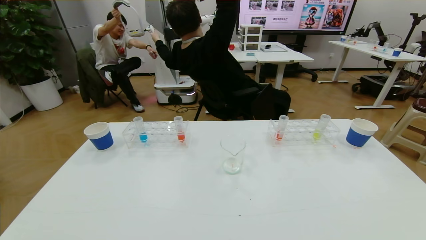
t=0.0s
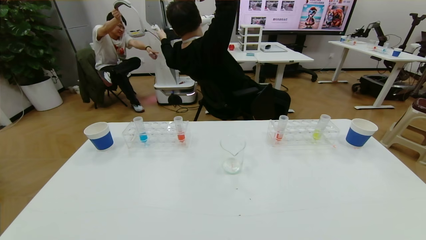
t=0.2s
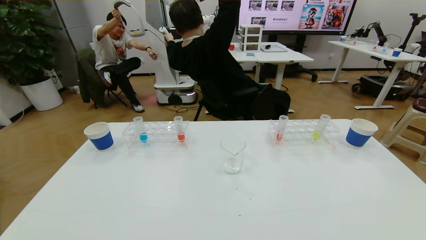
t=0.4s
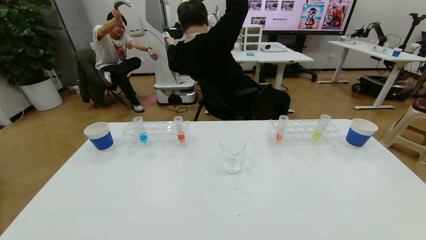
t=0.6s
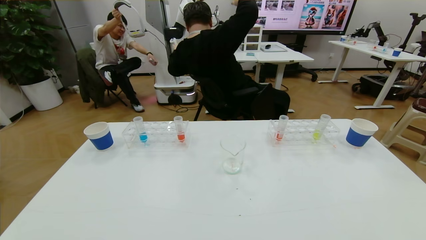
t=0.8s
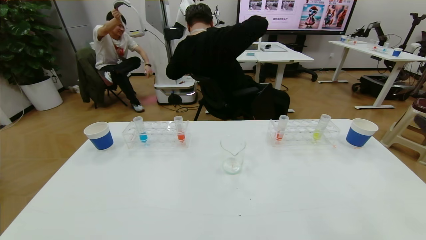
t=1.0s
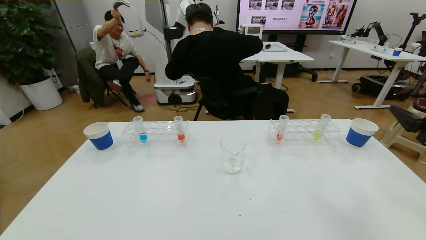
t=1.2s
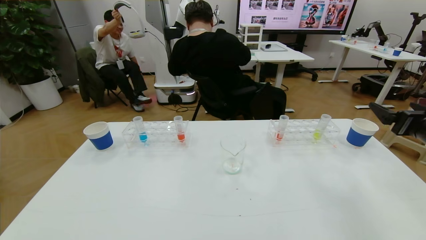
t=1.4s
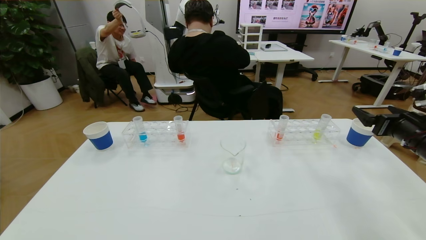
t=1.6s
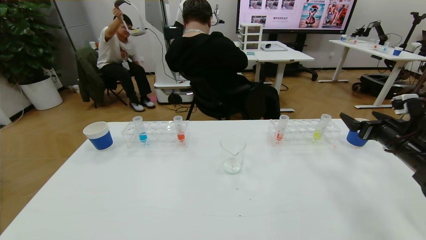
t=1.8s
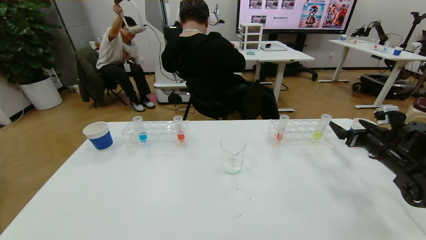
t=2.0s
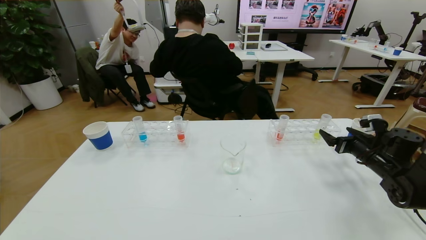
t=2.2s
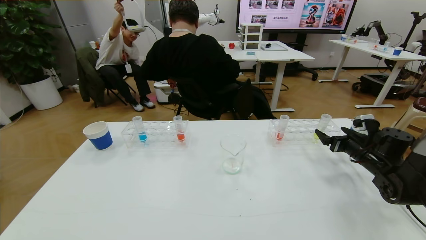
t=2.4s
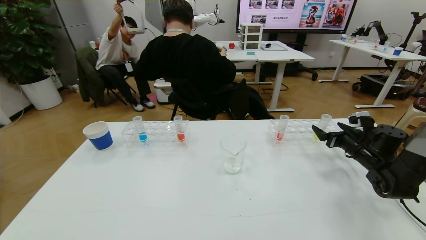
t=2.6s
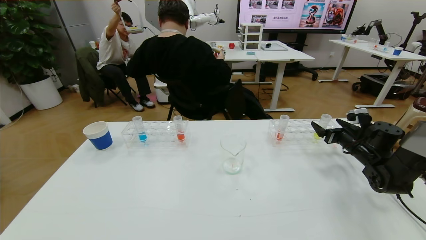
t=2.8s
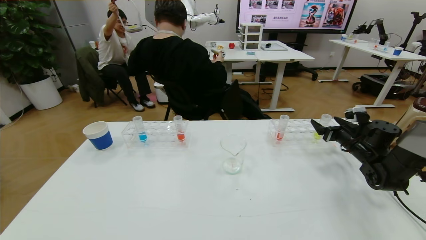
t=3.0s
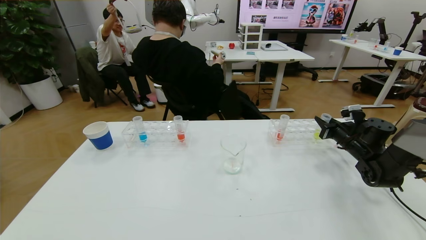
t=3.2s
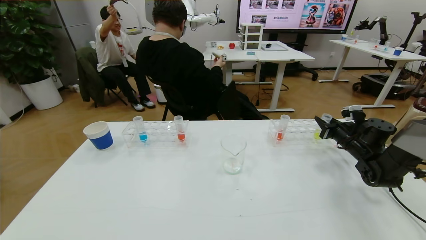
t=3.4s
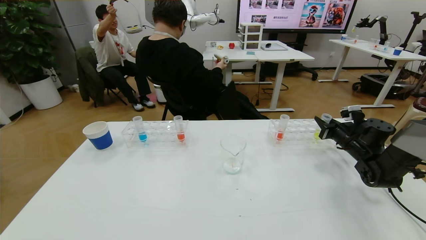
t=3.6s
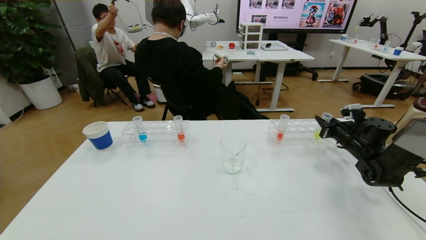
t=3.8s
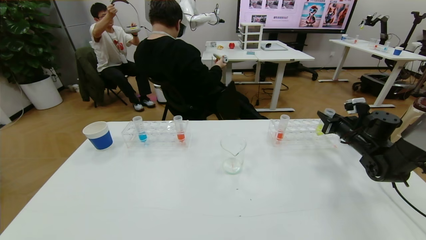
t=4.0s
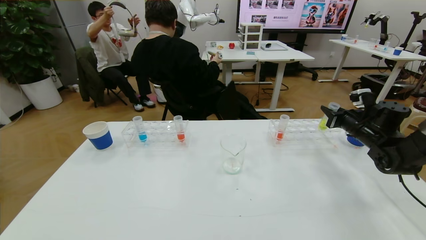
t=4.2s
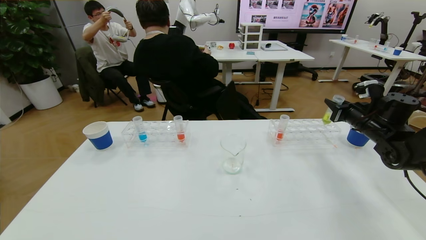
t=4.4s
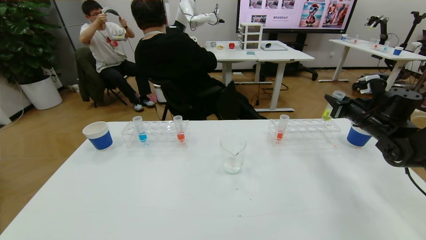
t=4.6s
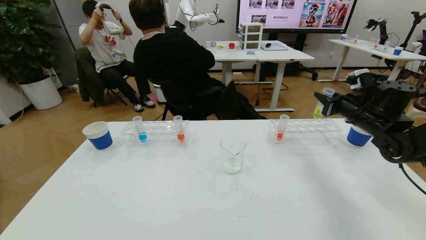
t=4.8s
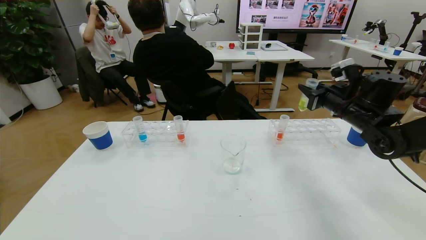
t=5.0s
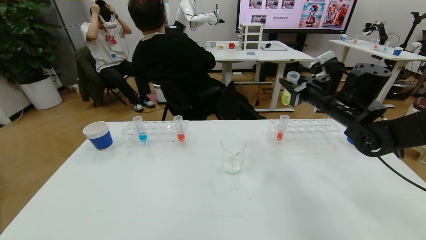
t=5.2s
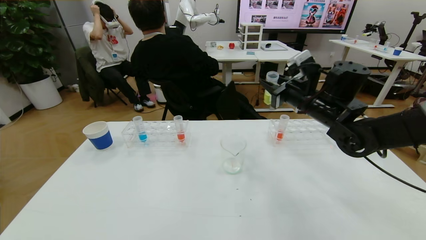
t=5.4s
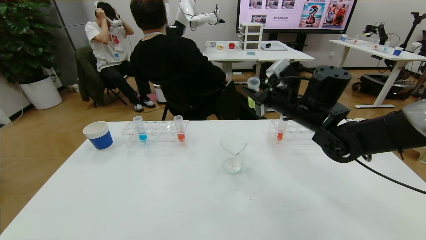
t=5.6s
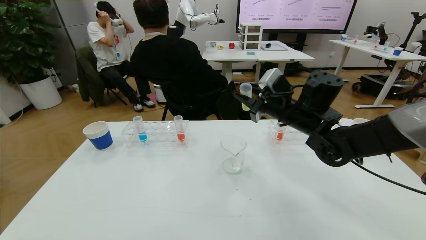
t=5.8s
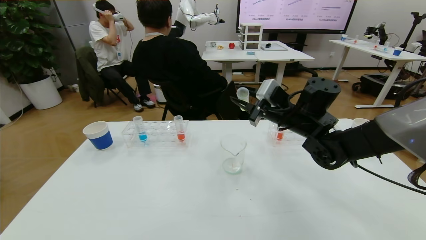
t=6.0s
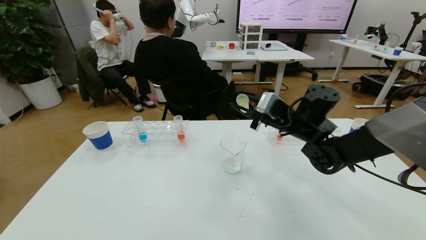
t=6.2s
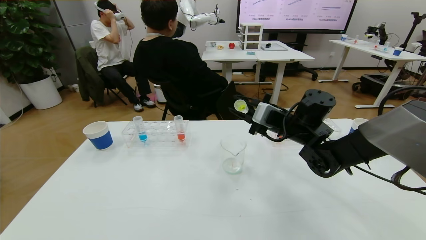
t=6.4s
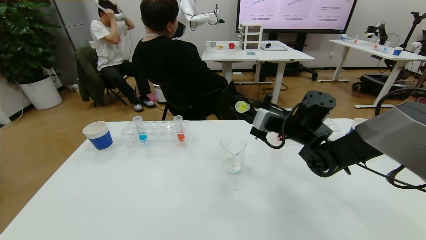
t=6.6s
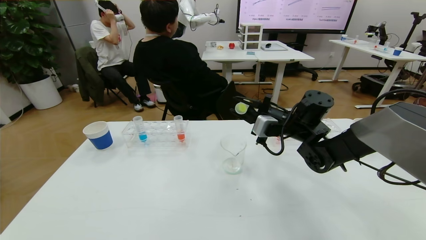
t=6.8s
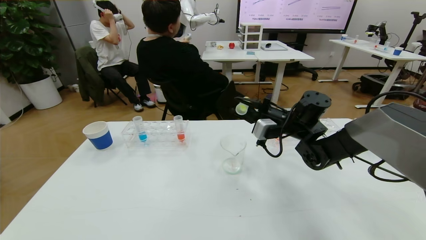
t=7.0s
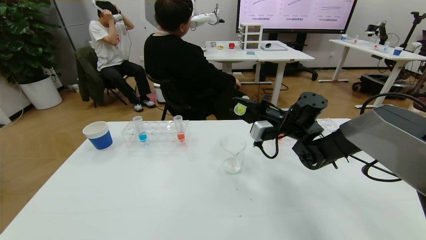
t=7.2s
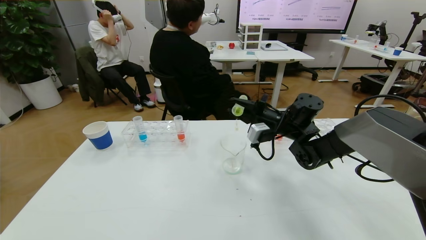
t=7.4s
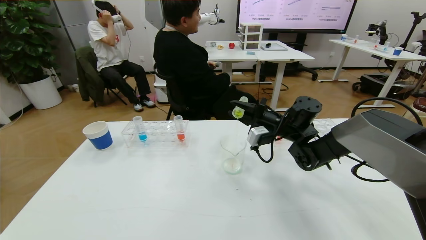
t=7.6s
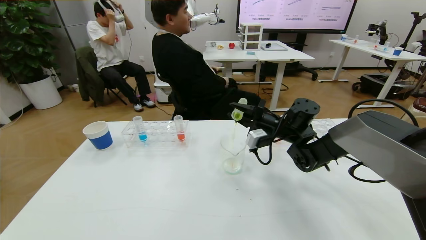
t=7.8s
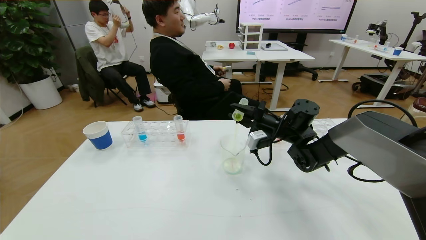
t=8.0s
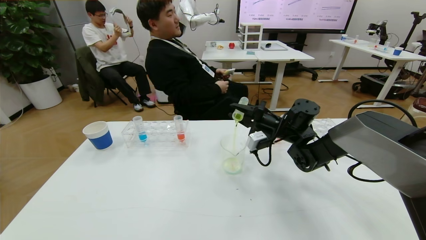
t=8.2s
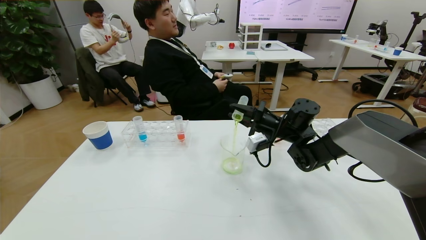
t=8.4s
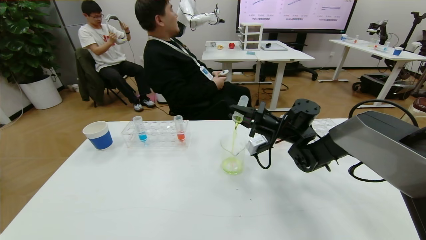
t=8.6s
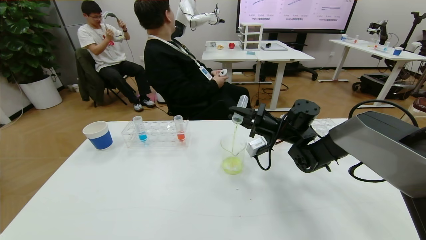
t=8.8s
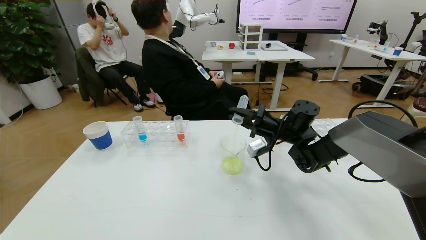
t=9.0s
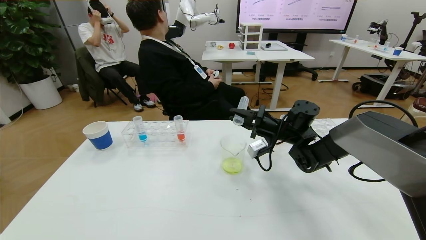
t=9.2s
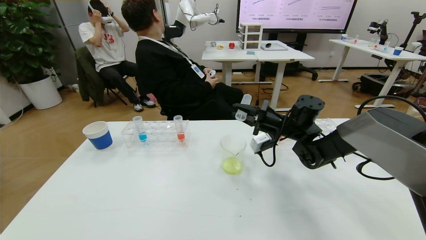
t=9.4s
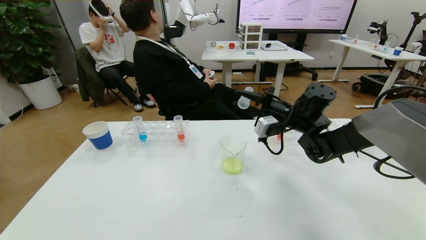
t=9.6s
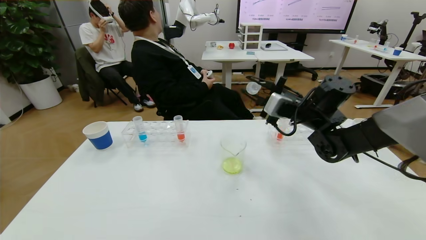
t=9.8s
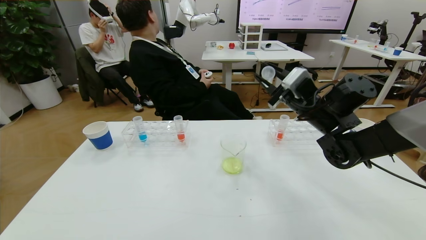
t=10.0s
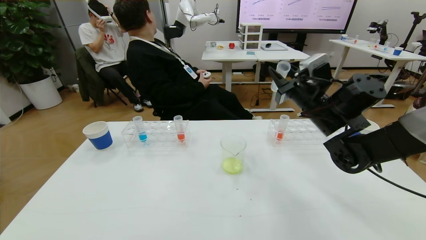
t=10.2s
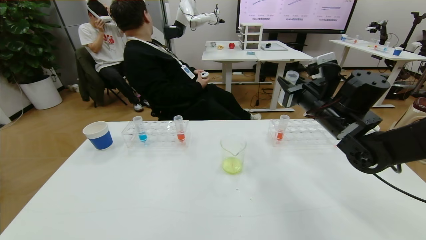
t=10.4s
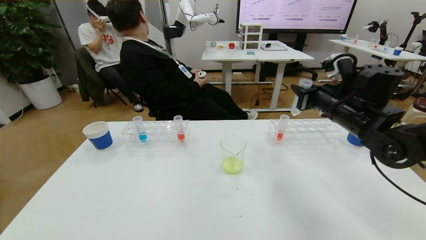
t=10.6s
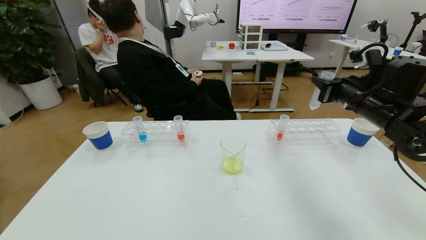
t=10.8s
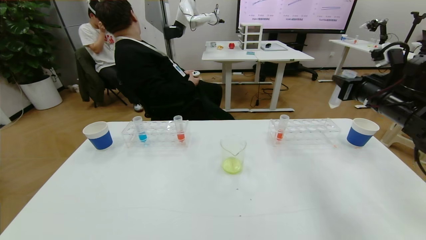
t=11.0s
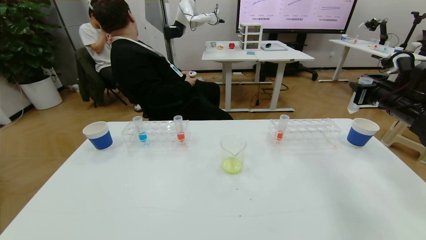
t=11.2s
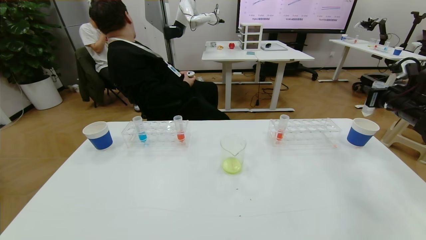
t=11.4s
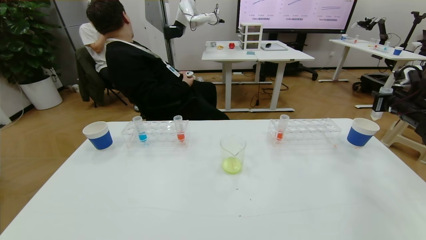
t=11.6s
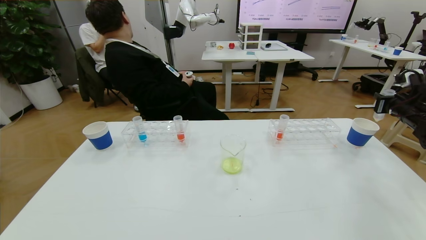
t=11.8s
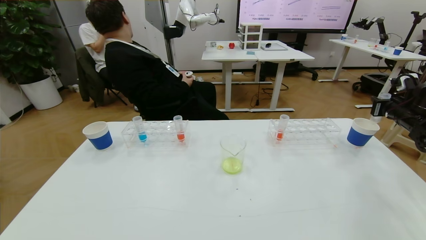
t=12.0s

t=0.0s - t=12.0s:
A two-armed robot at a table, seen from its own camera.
Task of the whole recording: pick up the test tube with yellow pigment and the test tube with blue pigment by grippers and pour them into the beaker.
t=0.0s - t=1.6s: The right gripper is displaced forward by roughly 30 cm.
t=1.6s - t=3.0s: The right gripper moves forward and downward, some 15 cm.
t=3.0s - t=4.4s: The right gripper travels upward by about 10 cm, and closes its fingers.
t=4.4s - t=6.0s: The right gripper goes approximately 25 cm to the left.
t=6.0s - t=7.6s: The right gripper is displaced downward by roughly 5 cm.
t=7.6s - t=9.0s: The grippers make only small movements.
t=9.0s - t=10.4s: The right gripper moves upward, backward and to the right, some 15 cm.
t=10.4s - t=12.0s: The right gripper moves to the right, approximately 25 cm.

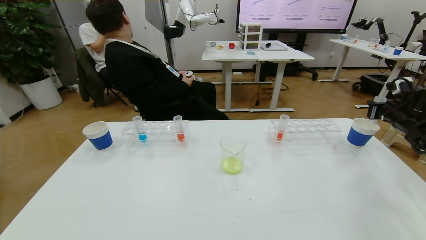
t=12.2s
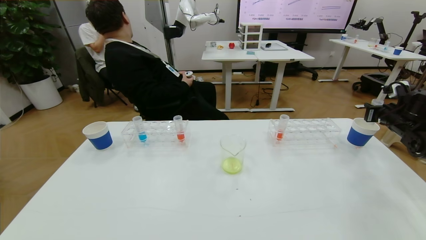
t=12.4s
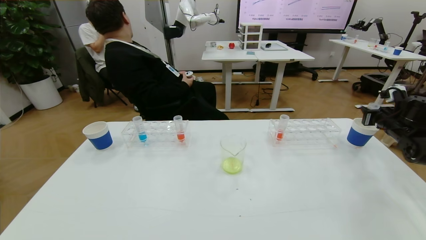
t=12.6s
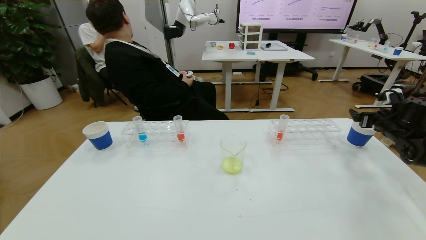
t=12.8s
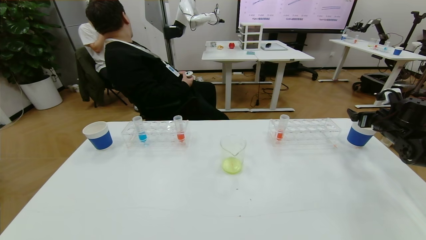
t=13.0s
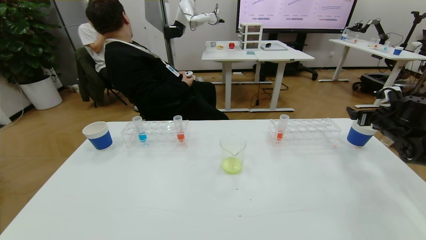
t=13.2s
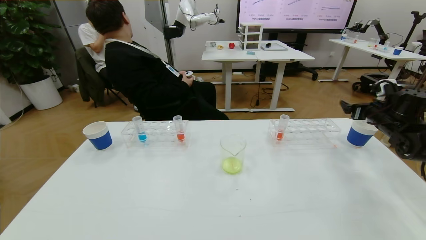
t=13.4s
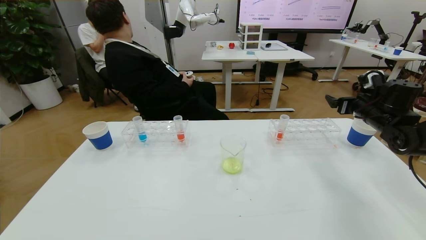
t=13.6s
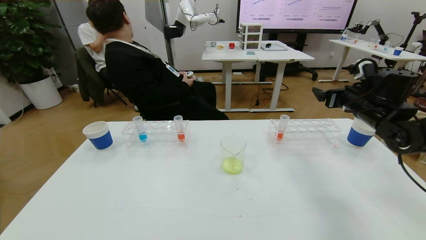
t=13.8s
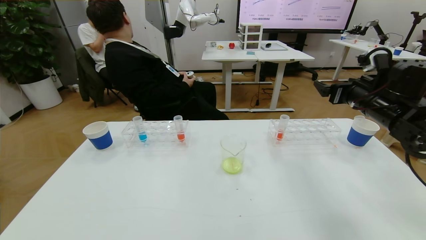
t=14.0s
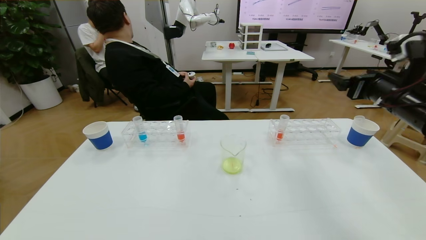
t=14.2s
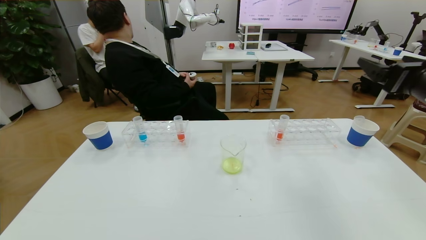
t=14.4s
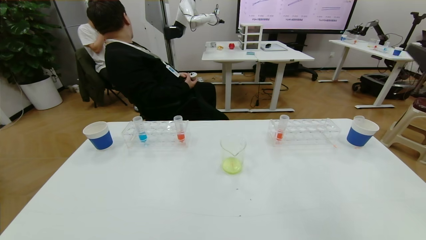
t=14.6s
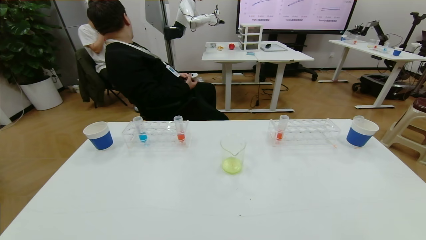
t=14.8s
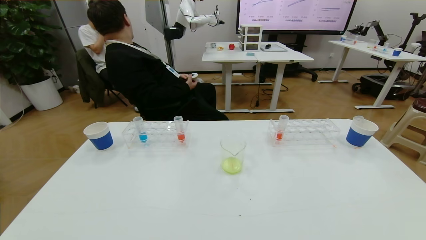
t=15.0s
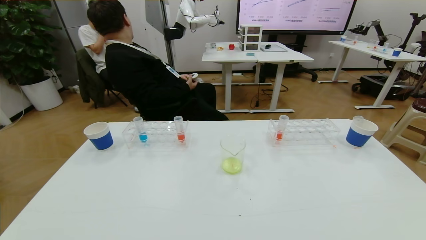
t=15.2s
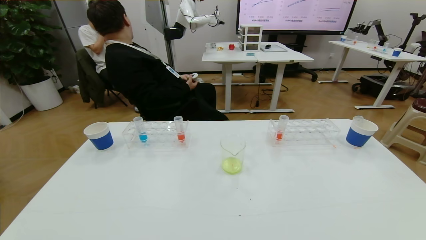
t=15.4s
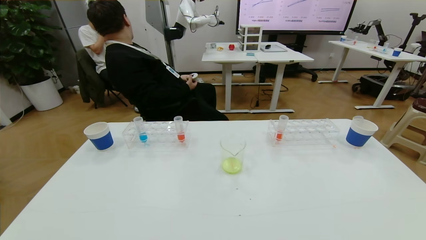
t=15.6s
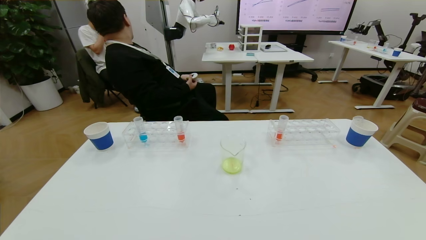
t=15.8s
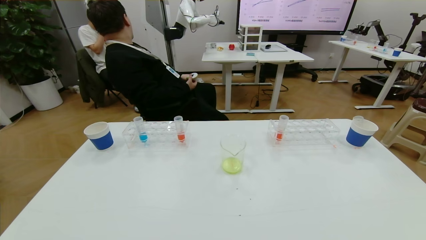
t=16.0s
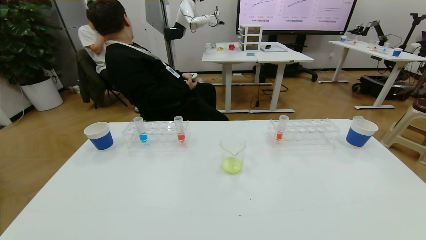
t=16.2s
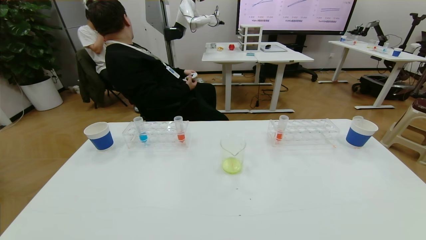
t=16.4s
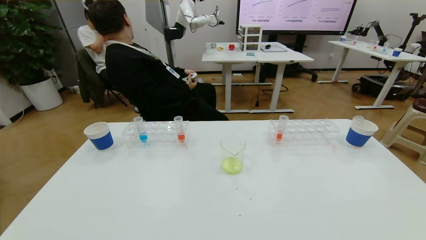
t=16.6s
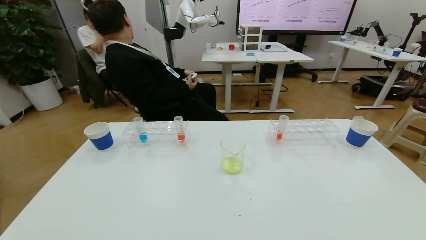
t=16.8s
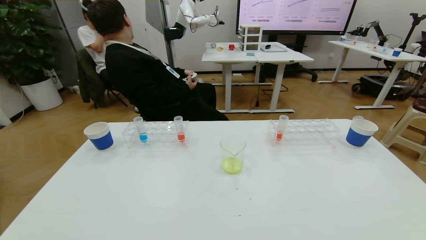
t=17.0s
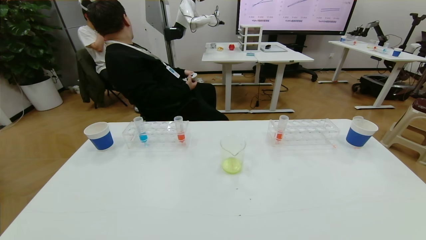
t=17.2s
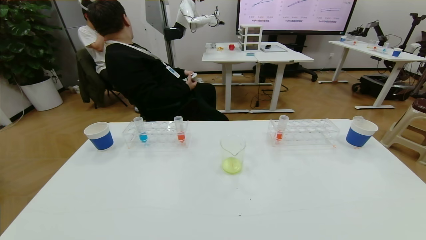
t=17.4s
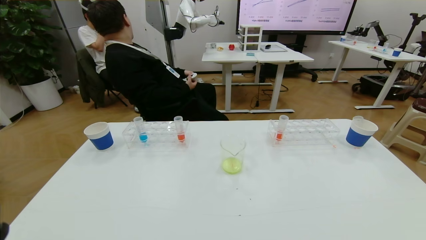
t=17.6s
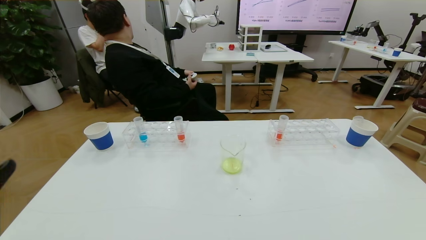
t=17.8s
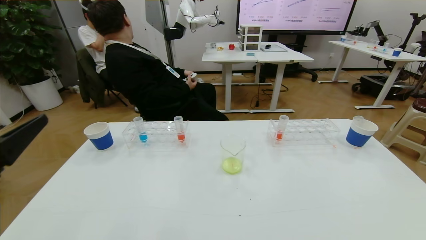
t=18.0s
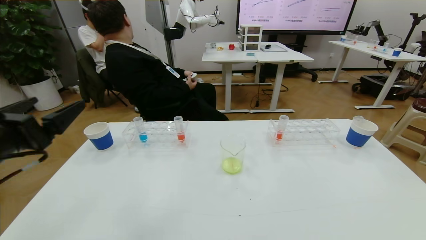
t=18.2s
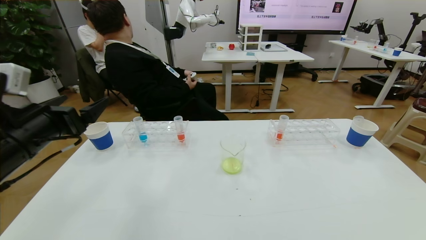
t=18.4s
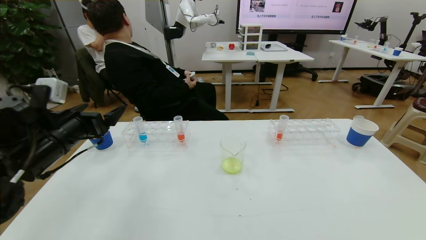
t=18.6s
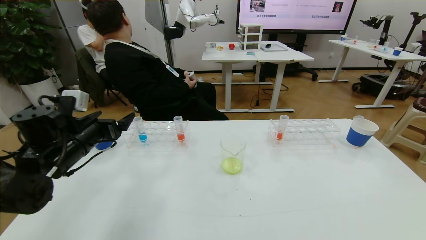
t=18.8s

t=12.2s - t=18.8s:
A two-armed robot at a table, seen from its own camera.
Task of the whole recording: pick up the test tube with yellow pigment and the test tube with blue pigment by grippers and pour them into the beaker.
Step, t=12.2s - t=15.8s: Pour the yellow reagent into the graduated cylinder and place the test tube into the paper cup.
t=12.2s - t=13.8s: The right gripper moves to the left, some 15 cm, and opens.
t=13.8s - t=15.4s: The right gripper shifts about 50 cm backward.
t=17.2s - t=18.8s: The left gripper moves forward, some 35 cm.
